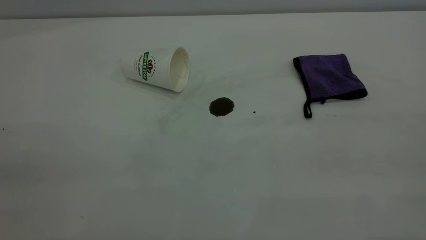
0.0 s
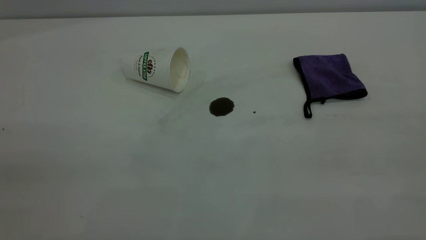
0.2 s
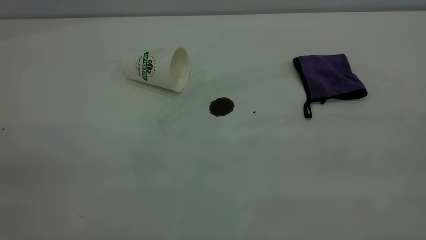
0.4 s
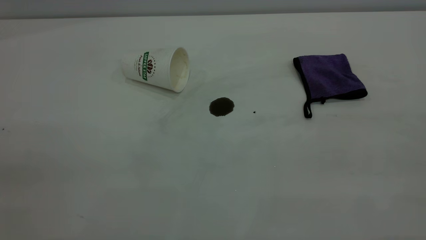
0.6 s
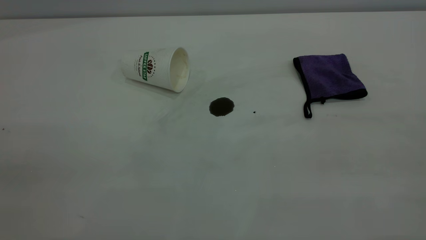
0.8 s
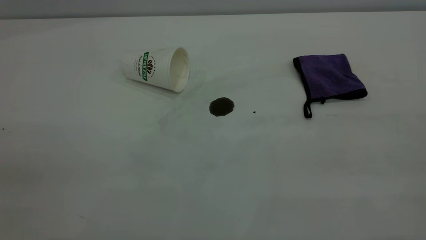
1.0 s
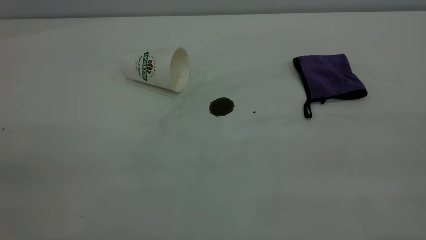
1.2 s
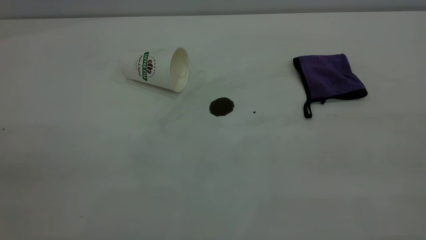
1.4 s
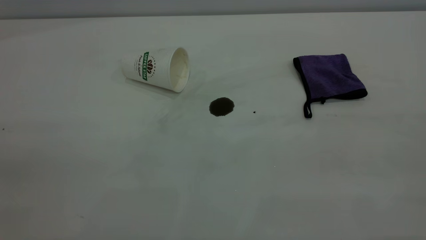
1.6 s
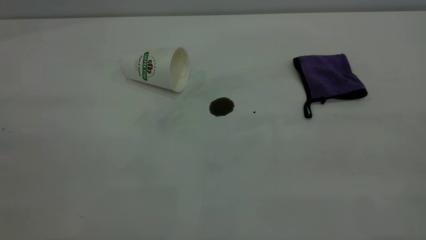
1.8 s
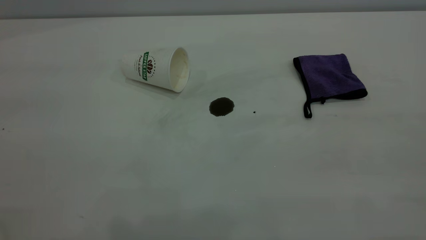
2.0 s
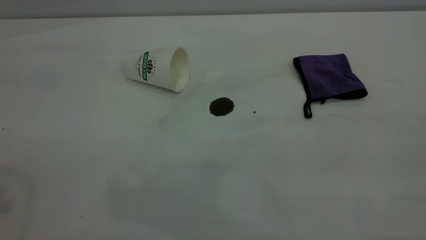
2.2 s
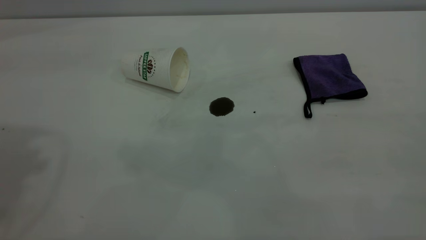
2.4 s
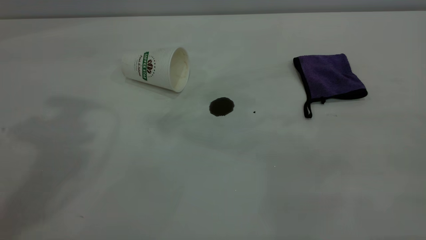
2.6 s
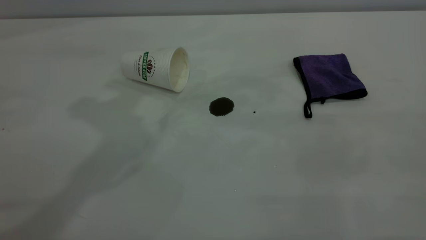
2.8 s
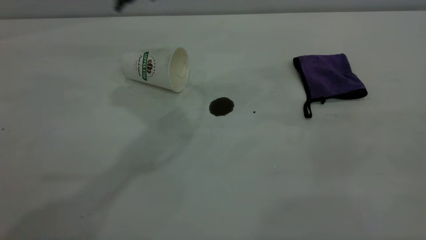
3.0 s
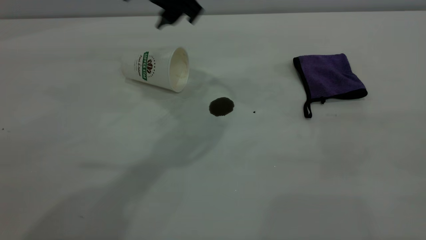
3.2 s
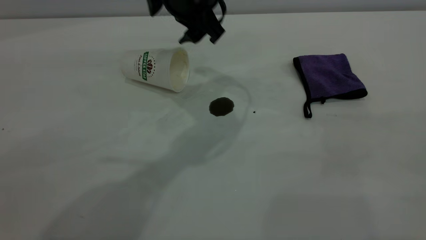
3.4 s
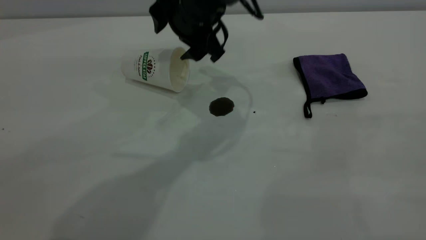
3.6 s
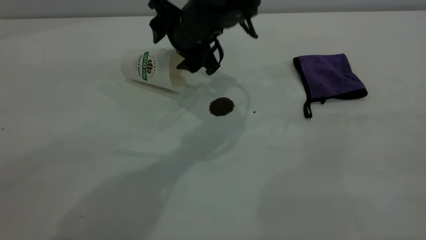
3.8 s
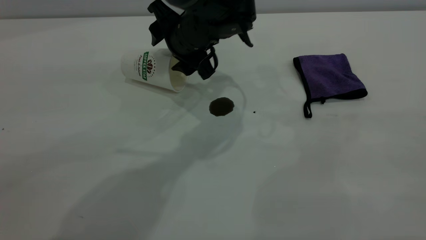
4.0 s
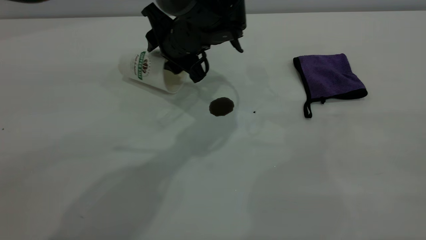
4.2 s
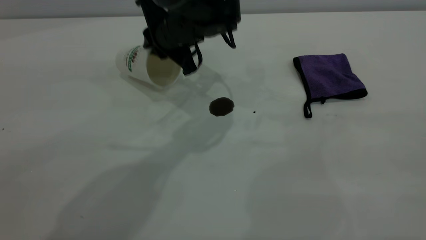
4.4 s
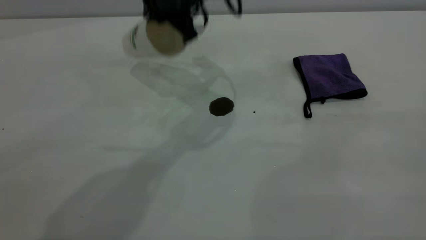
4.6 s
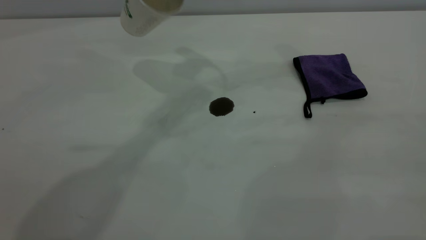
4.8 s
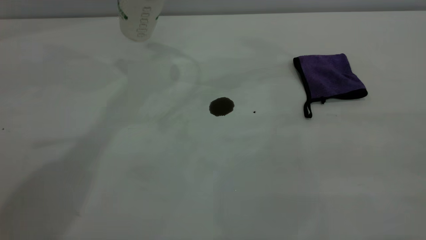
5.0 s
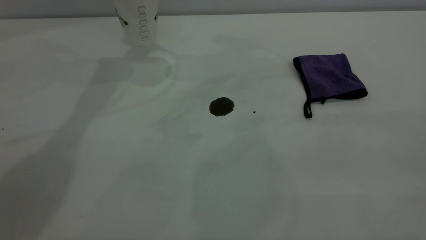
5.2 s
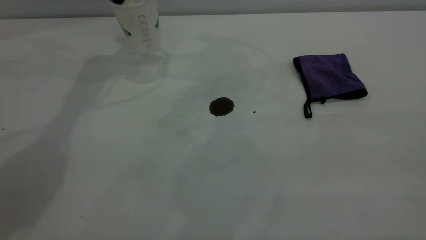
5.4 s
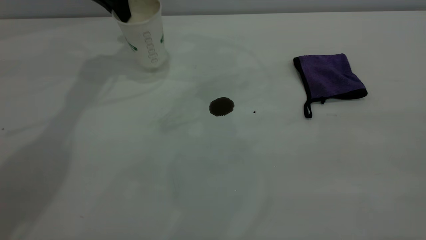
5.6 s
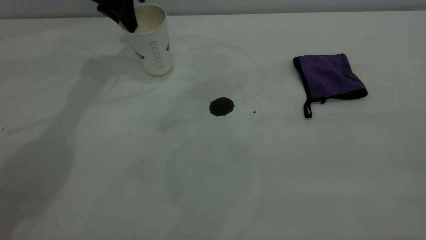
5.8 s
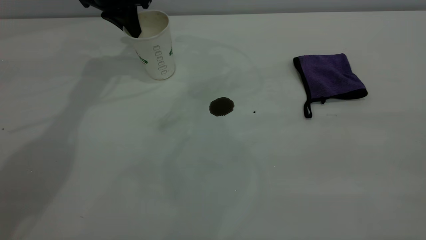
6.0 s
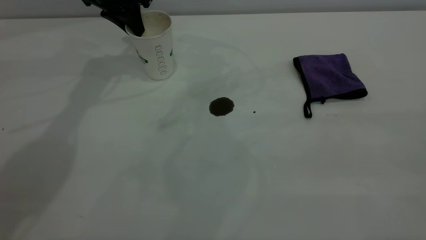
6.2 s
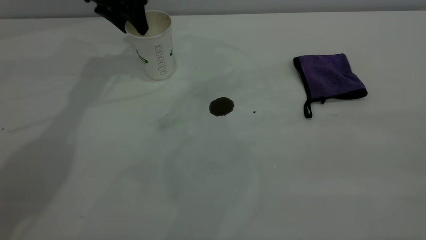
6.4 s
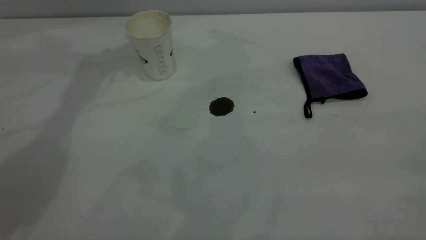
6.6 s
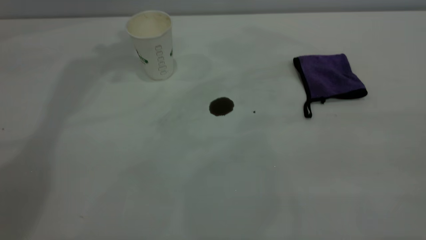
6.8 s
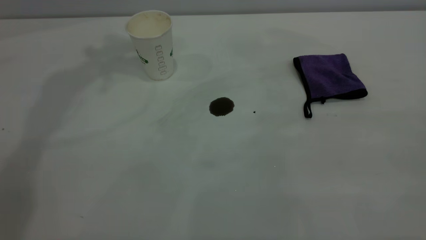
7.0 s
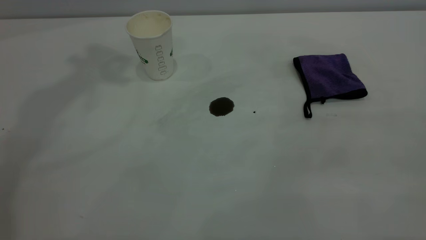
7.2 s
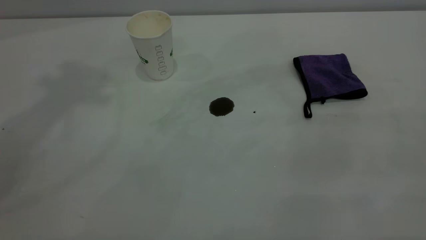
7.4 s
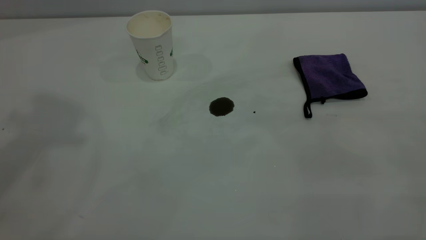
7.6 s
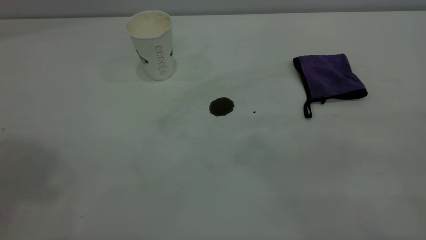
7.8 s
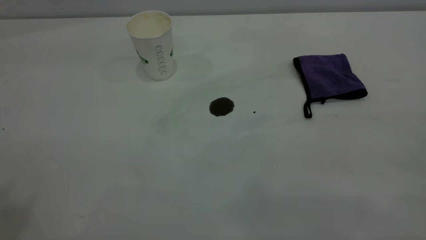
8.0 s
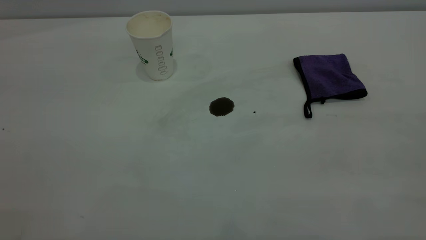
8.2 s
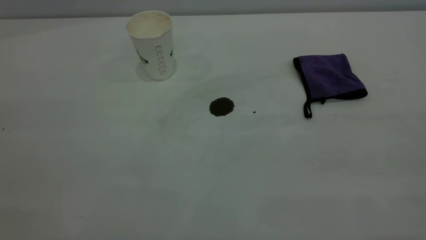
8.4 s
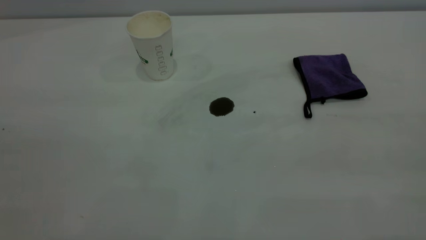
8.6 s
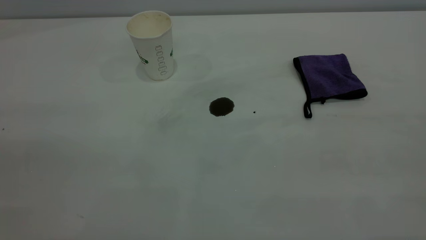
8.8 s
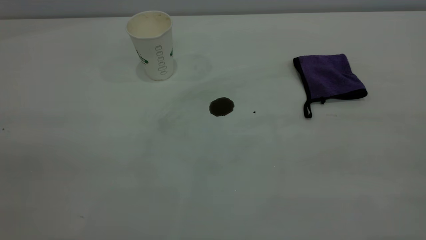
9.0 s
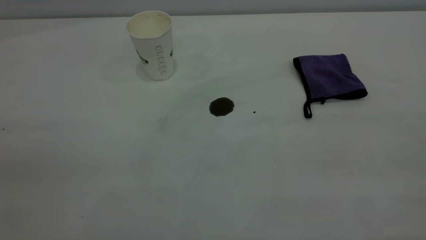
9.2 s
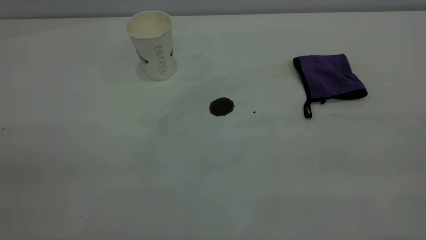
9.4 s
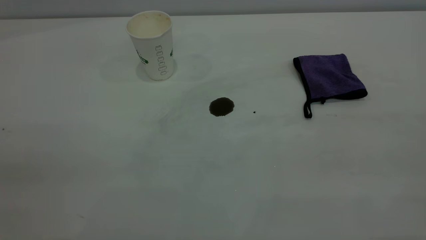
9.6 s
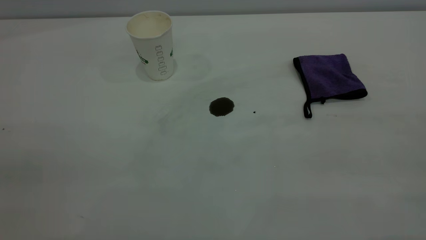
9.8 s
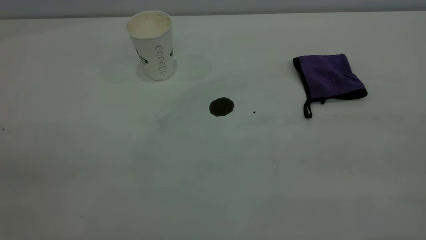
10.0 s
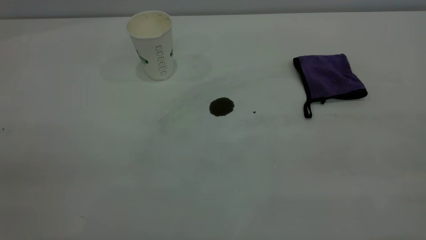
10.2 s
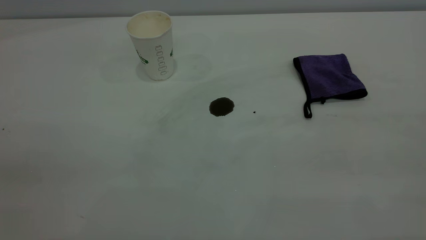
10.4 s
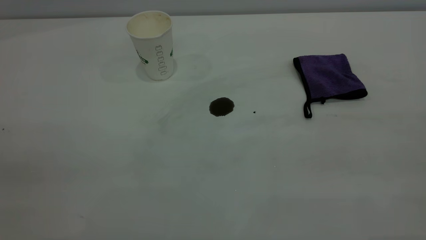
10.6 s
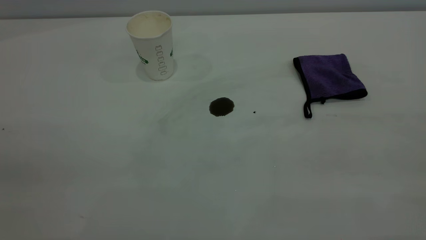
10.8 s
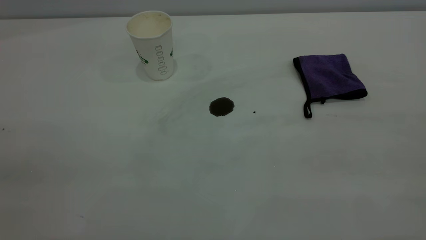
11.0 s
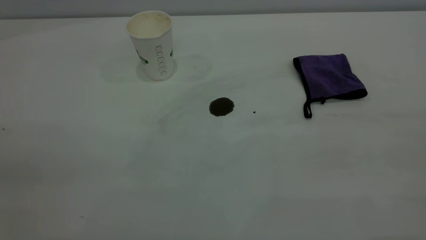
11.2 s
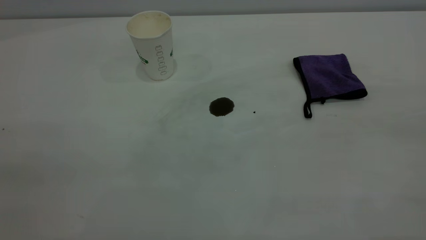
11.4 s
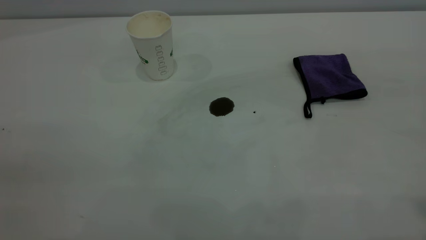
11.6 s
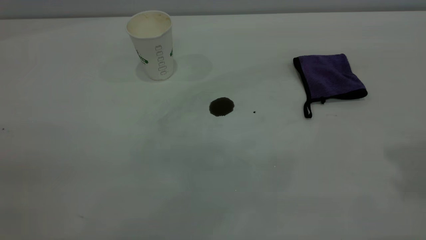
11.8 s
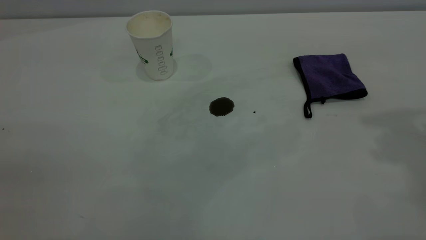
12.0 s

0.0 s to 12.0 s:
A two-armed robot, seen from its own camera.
Task of the whole recording: the left gripper pick up the fallen cup and place it upright, the right gripper grasp the purple rag and wipe the coffee stain on the table, the right gripper put the purple rag back in its original position.
Step, 0.0 to 6.4 s: Stand the paper cup upright.
0.0 to 1.6 s: The two grippers keep their place.
3.0 to 4.4 s: The left gripper moves downward, approximately 15 cm, and closes.
4.4 to 6.0 s: The left gripper goes some 20 cm to the left and forward.
6.0 to 7.6 s: The left gripper moves upward and backward, some 50 cm, and opens up.

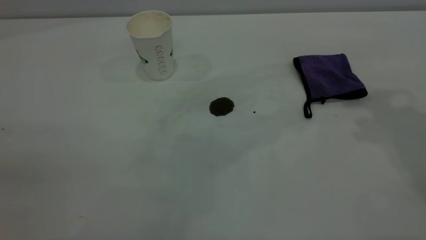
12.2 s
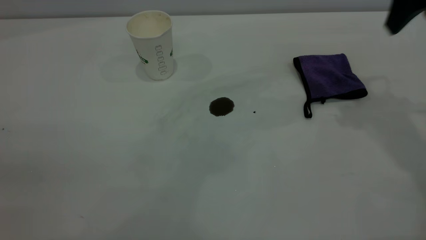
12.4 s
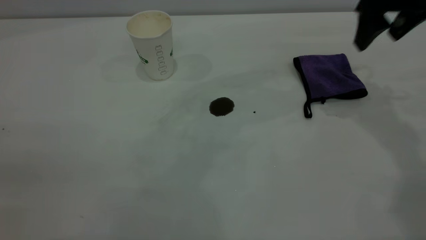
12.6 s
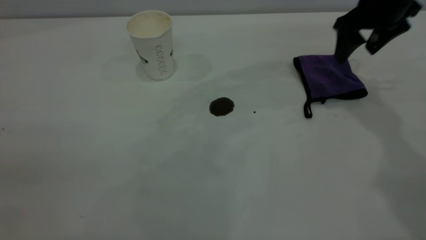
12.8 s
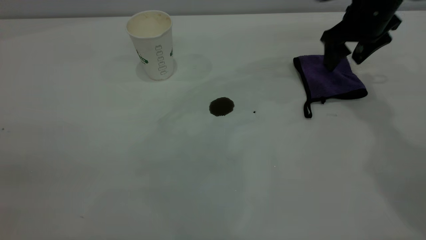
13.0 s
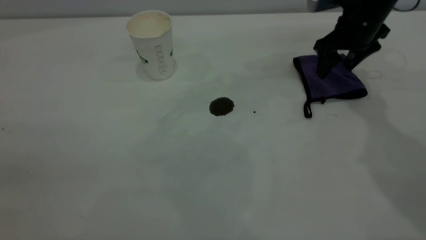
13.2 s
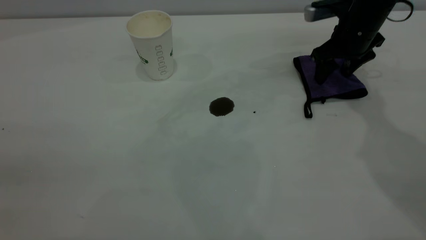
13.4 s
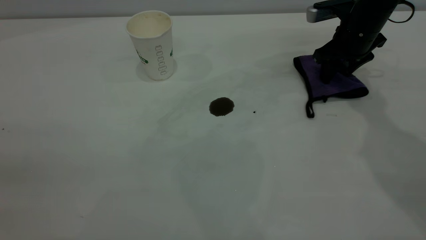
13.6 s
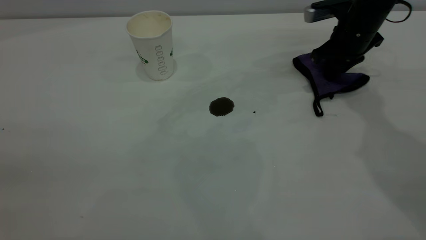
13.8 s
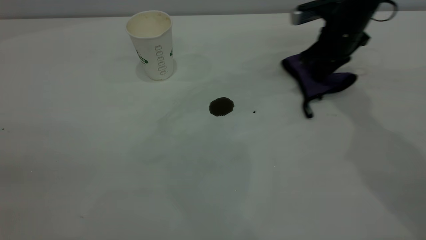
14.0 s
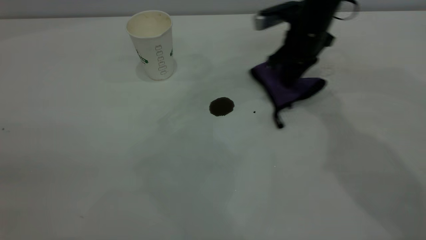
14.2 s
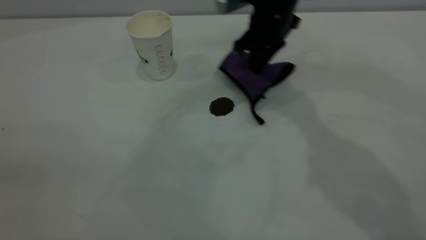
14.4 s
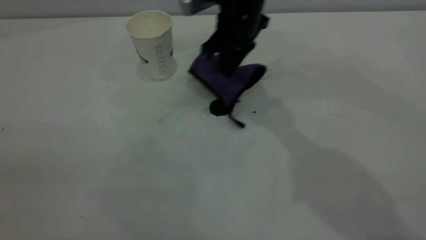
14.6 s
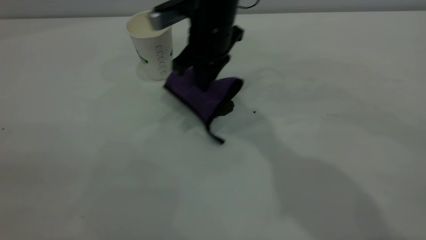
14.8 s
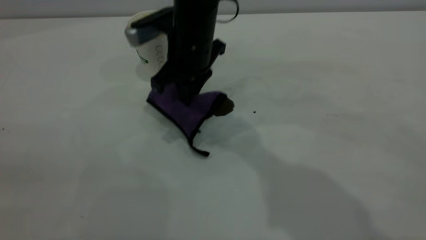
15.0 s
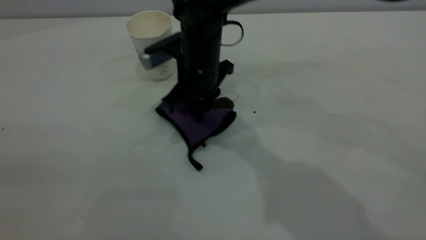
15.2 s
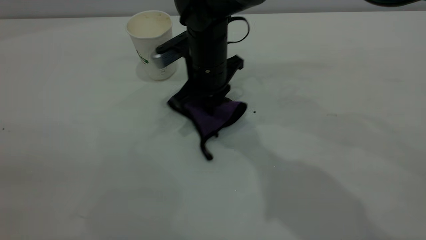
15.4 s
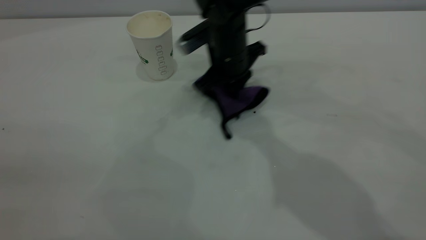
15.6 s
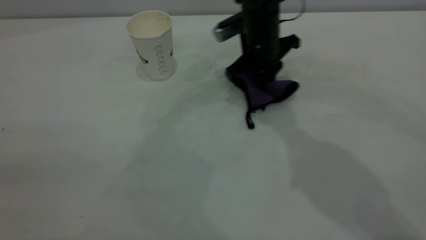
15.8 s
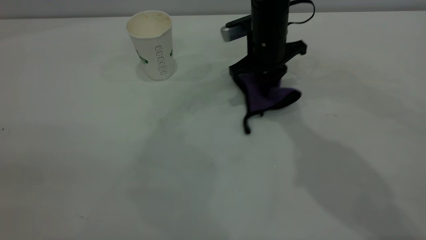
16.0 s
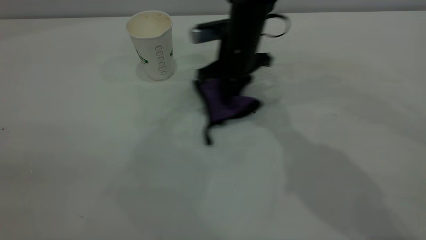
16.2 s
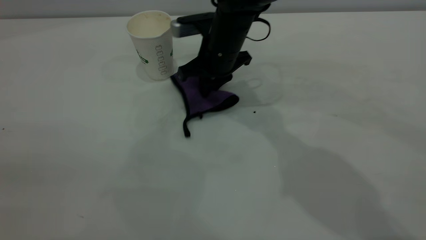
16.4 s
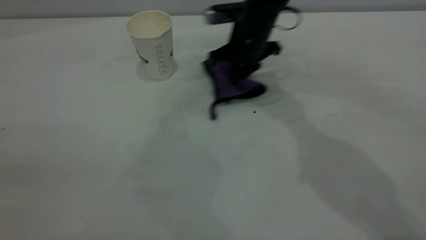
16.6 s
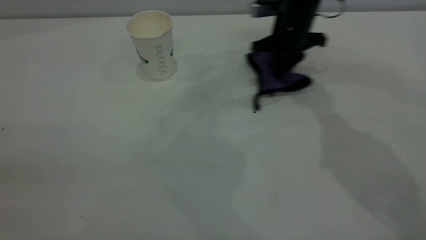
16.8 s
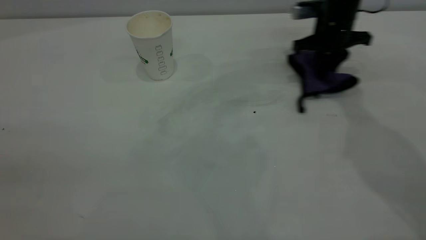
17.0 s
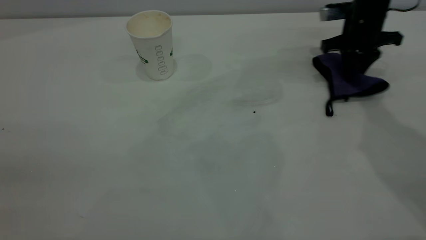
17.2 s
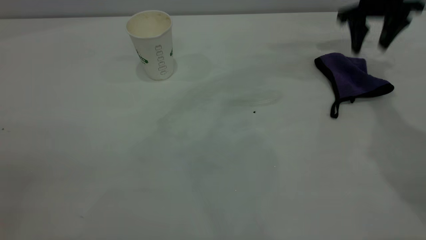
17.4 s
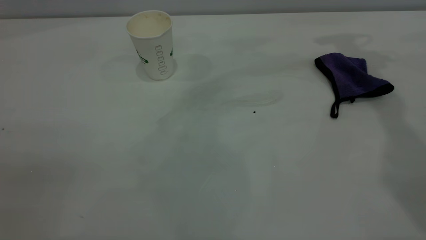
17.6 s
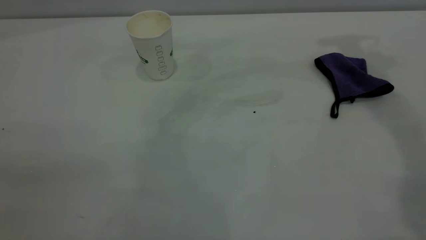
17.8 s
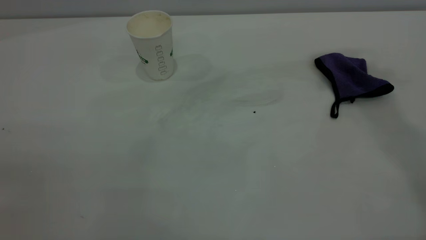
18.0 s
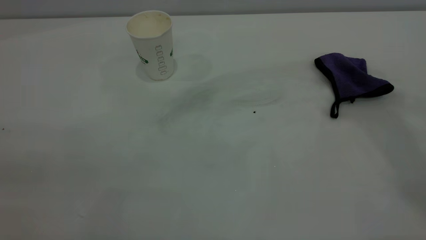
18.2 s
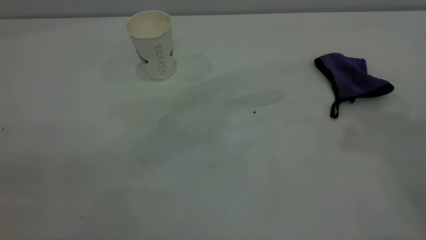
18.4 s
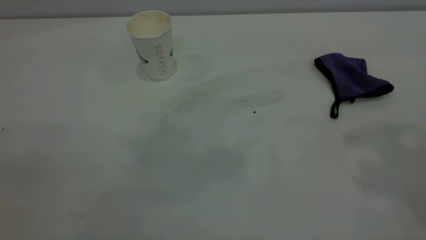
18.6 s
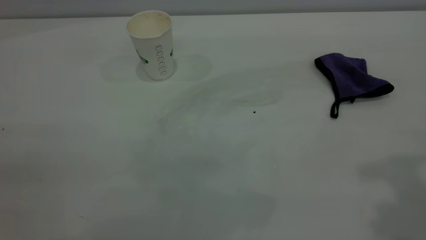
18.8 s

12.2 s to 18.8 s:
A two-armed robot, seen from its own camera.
Task of the whole recording: the left gripper pick up the fallen cup and place it upright, the right gripper grasp the purple rag and wipe the coffee stain on the table, the right gripper put the purple rag back in its original position.
Step, 12.2 to 17.4 s: Wipe the stains off the table with a rag.
12.2 to 13.8 s: The right gripper moves downward and forward, approximately 25 cm, and closes.
13.8 to 15.4 s: The right gripper travels to the left by approximately 25 cm.
15.4 to 17.2 s: The right gripper goes left and right, about 30 cm each way, reversing 2 times.
17.2 to 18.8 s: The right gripper goes roughly 40 cm backward and upward, and opens up.
